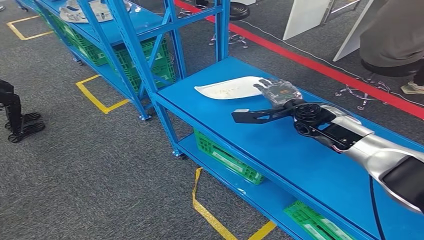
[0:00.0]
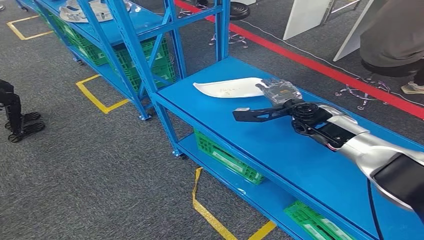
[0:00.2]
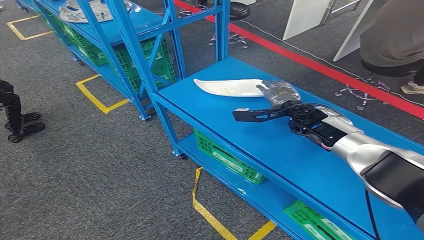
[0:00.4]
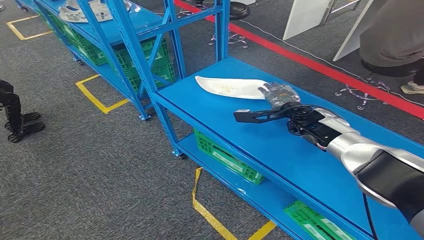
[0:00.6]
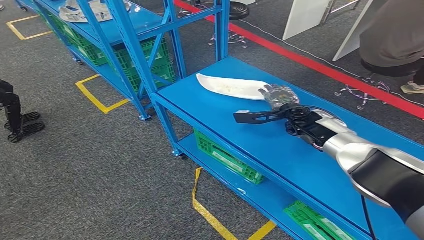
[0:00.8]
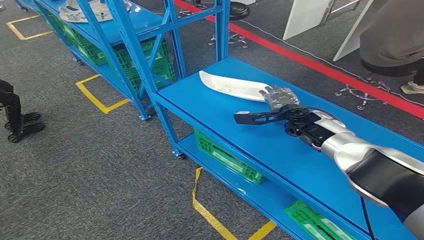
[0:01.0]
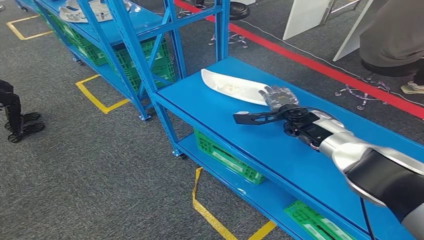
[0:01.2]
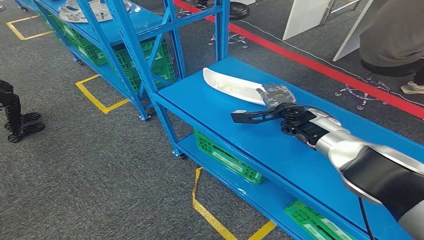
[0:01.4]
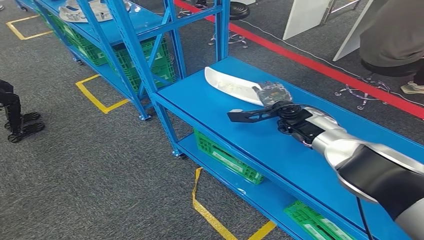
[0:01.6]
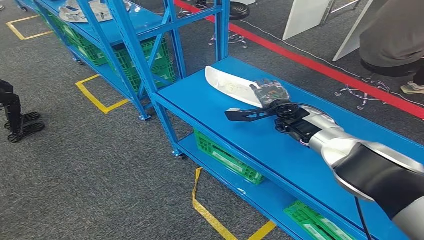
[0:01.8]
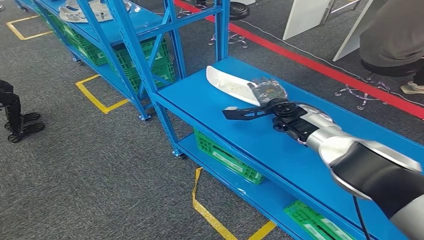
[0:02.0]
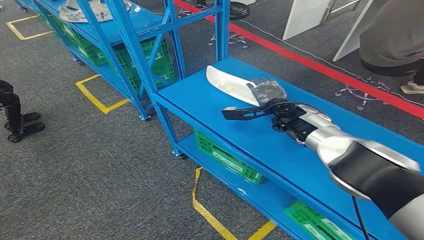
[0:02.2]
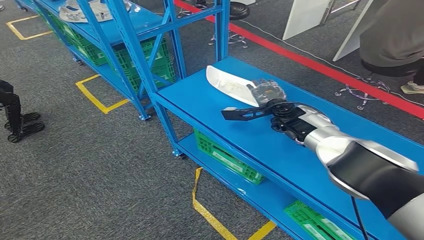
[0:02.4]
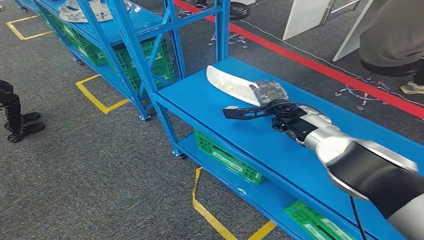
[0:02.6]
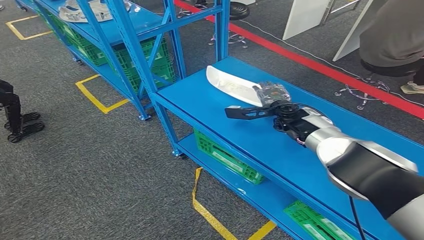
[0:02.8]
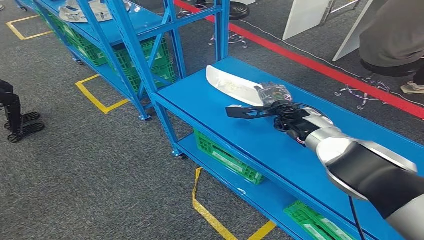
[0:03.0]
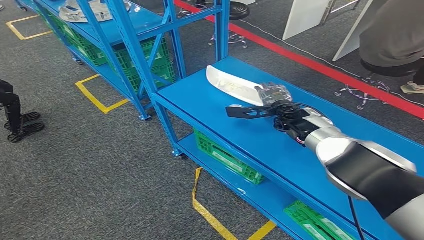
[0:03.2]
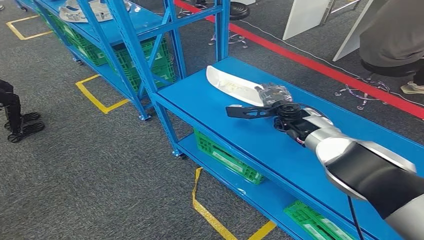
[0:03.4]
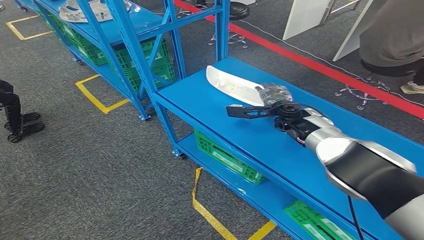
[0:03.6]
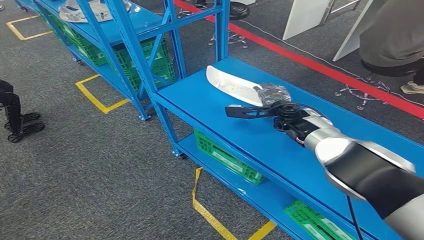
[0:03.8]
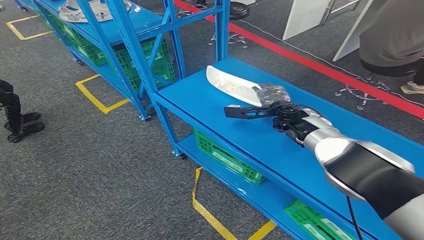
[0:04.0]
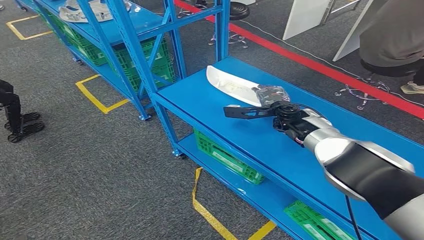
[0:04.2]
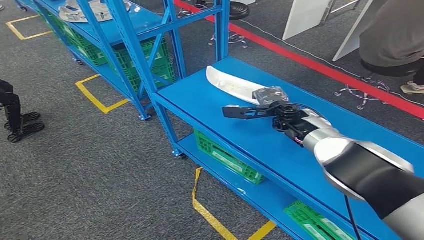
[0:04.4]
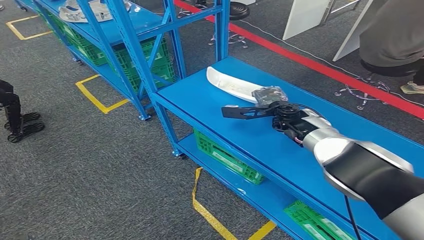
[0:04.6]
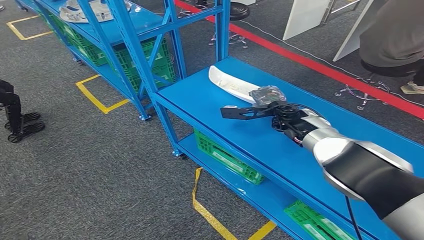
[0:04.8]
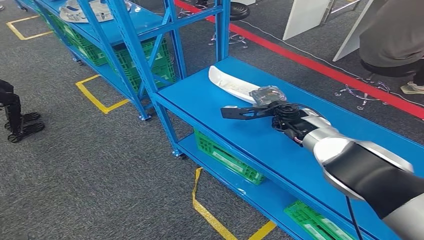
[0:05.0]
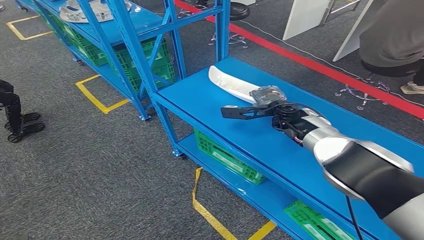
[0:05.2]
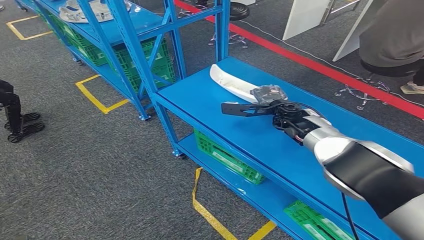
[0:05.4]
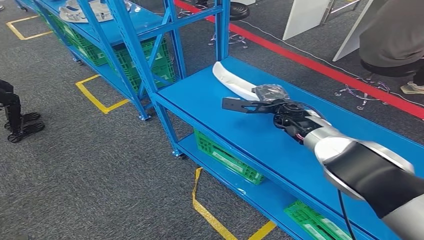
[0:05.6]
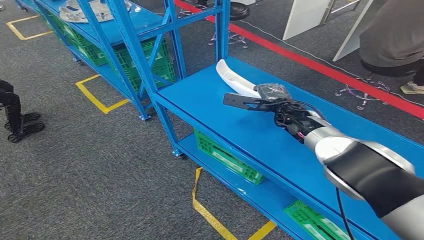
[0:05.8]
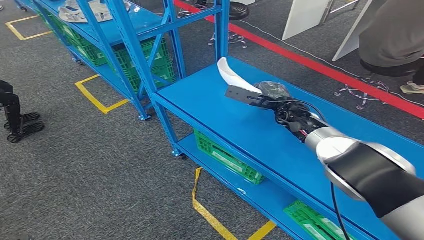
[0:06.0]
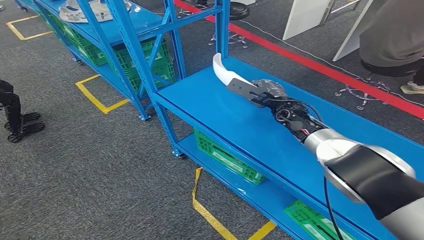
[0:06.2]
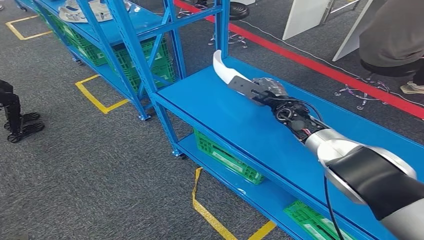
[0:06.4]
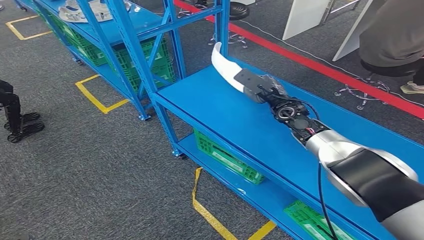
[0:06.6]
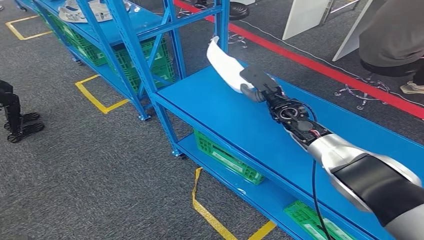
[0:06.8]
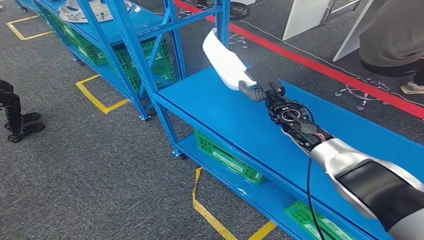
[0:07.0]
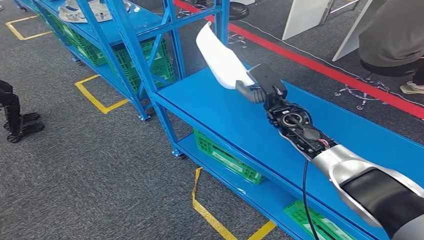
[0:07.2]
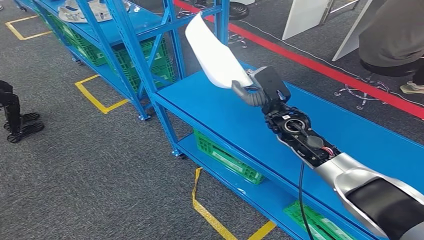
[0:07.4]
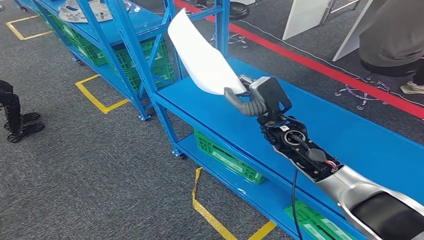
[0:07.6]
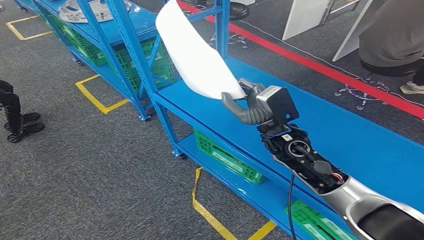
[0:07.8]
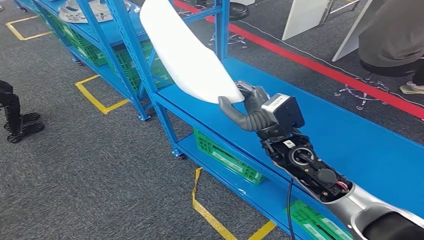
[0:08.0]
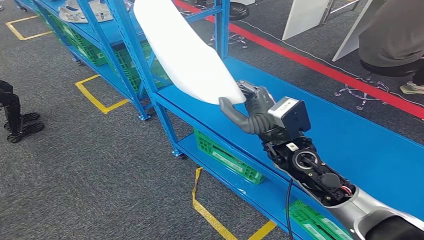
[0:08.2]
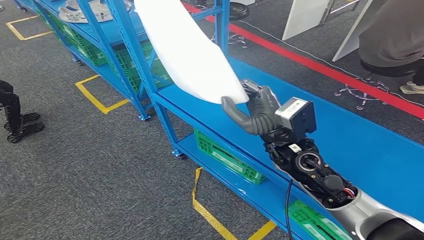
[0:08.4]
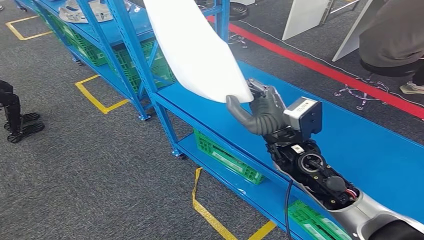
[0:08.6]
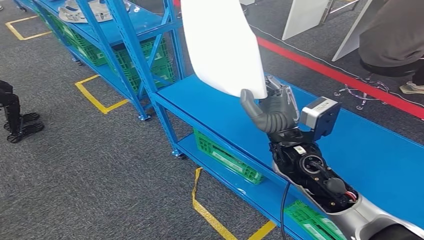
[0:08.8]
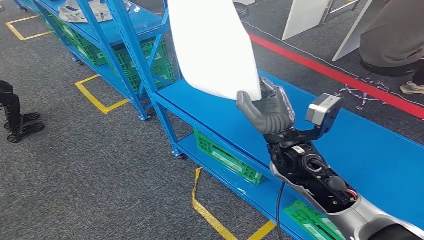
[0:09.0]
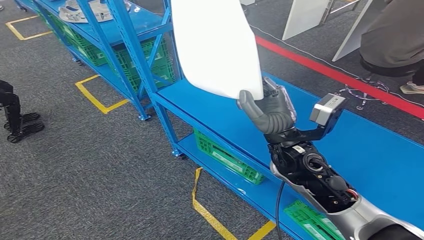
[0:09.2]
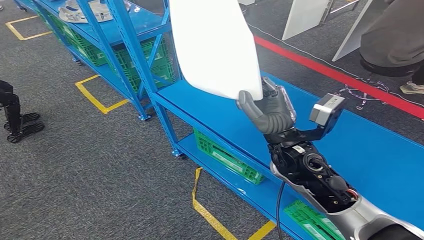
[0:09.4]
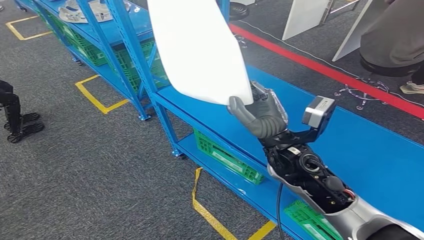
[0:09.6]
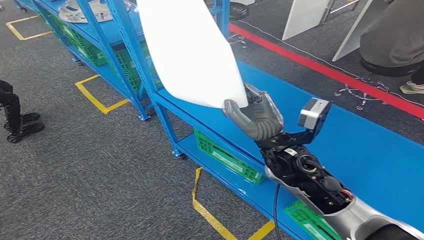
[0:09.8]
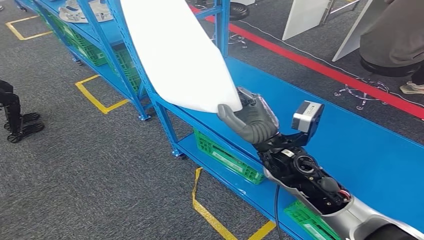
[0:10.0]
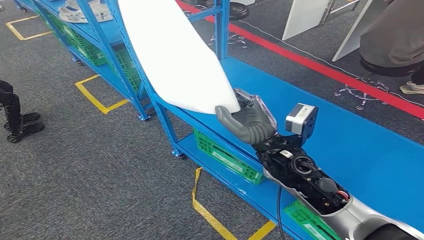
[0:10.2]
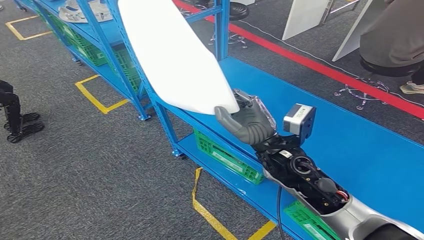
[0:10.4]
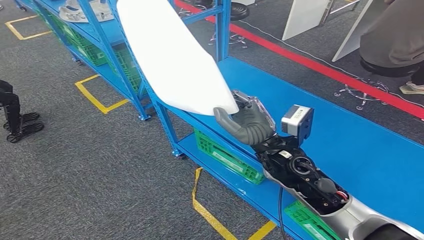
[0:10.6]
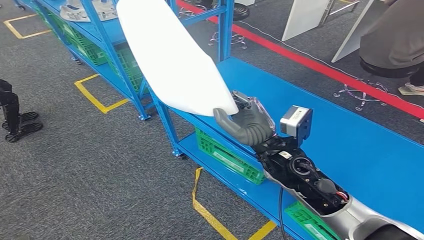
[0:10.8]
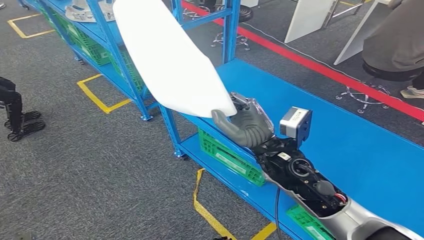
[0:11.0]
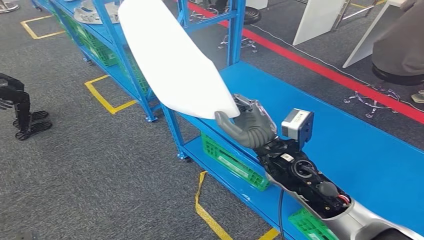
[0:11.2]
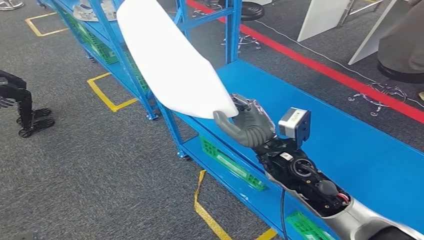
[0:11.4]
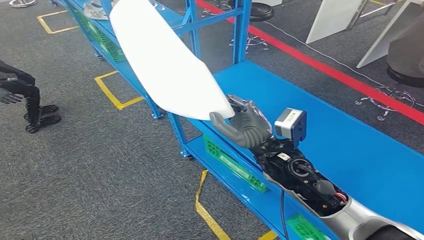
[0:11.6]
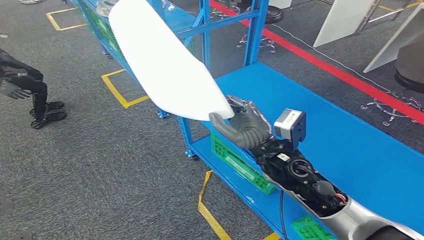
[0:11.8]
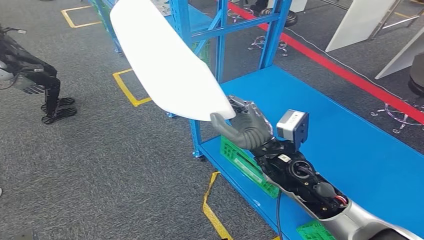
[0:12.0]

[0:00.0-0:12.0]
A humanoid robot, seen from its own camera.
Step, 0:00.0 to 0:08.8: Pick up the small parts from the shelf.
0:00.0 to 0:01.6: The right hand moves roughly 5 cm.
0:01.6 to 0:04.4: The hands stay close to where they were, moving slightly.
0:06.0 to 0:07.6: The right hand goes some 15 cm backward and to the left.
0:07.6 to 0:09.0: The right hand heads backward, covering some 10 cm.
0:09.0 to 0:10.4: The hands make only small movements.

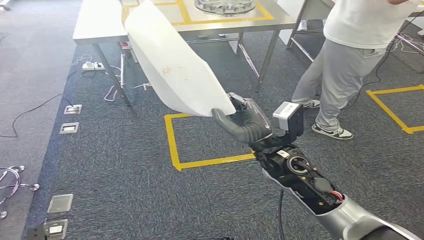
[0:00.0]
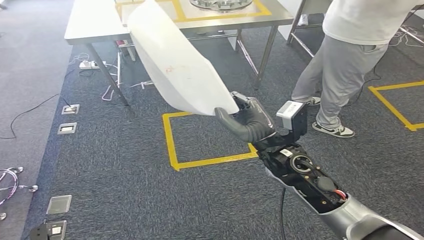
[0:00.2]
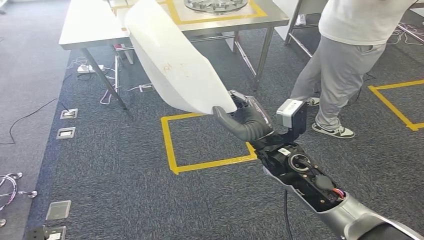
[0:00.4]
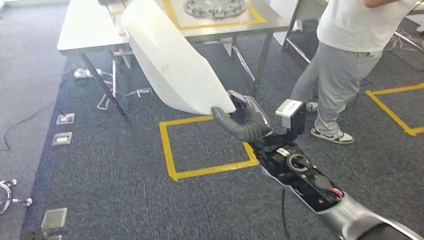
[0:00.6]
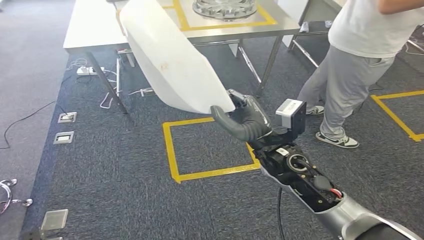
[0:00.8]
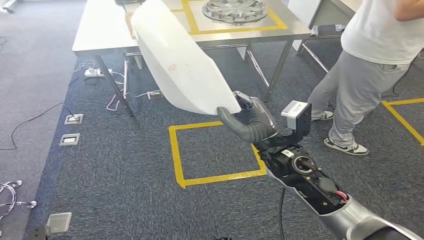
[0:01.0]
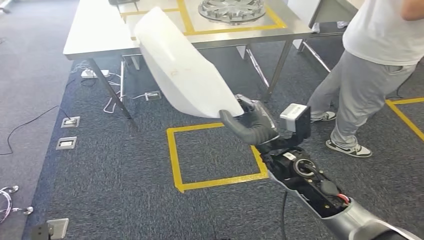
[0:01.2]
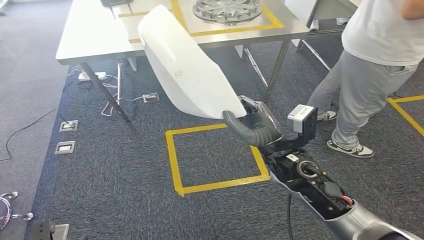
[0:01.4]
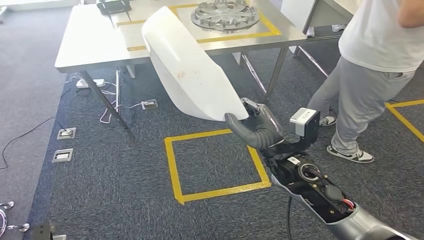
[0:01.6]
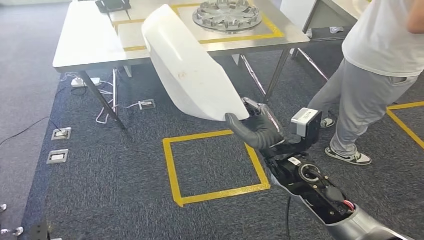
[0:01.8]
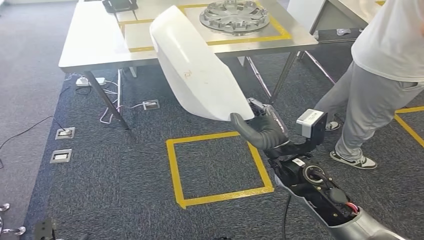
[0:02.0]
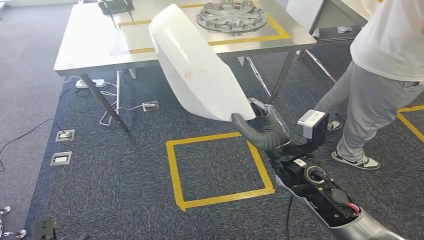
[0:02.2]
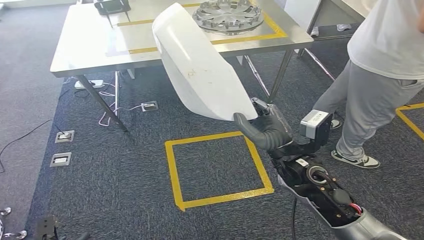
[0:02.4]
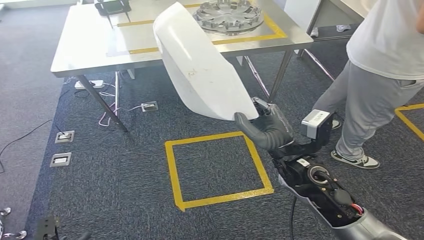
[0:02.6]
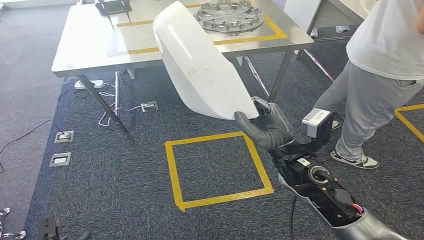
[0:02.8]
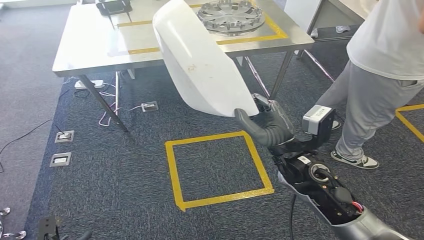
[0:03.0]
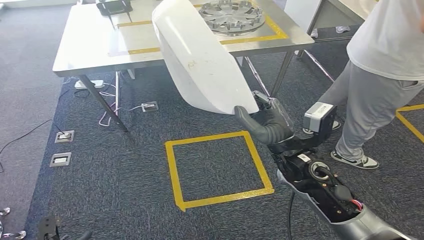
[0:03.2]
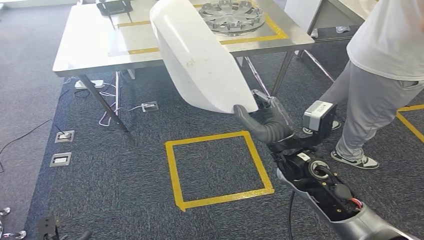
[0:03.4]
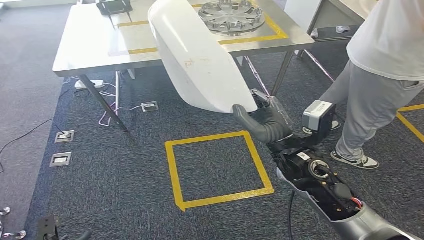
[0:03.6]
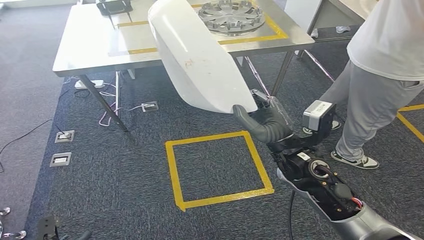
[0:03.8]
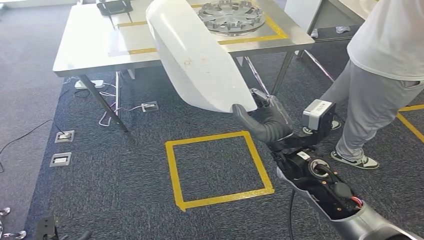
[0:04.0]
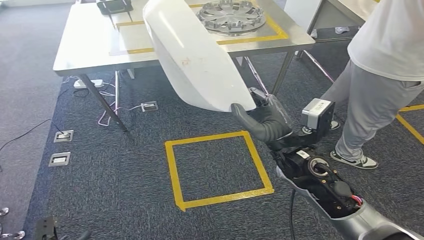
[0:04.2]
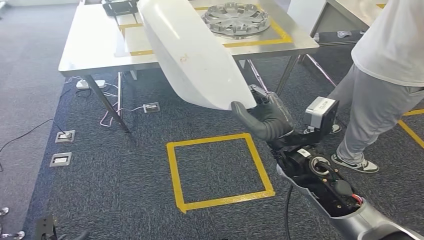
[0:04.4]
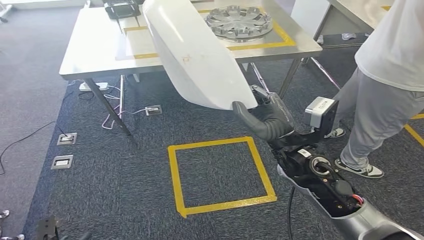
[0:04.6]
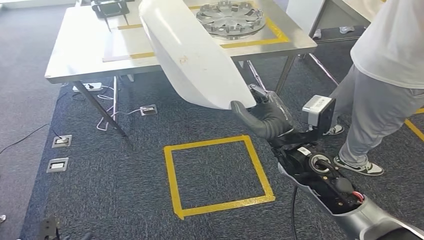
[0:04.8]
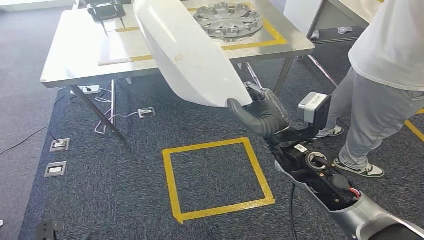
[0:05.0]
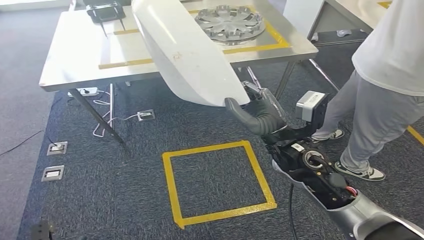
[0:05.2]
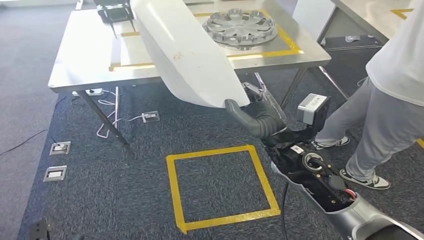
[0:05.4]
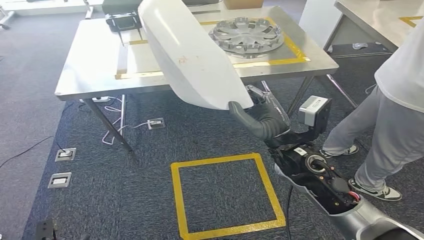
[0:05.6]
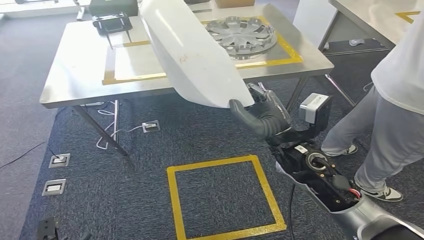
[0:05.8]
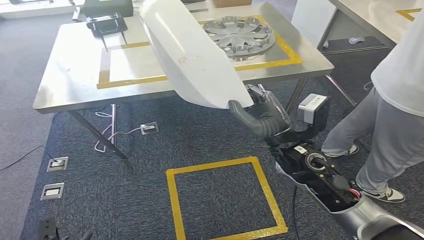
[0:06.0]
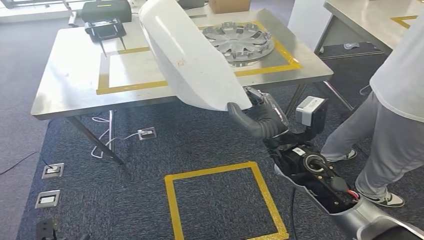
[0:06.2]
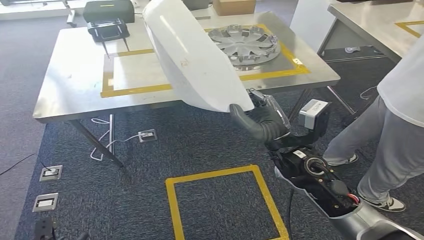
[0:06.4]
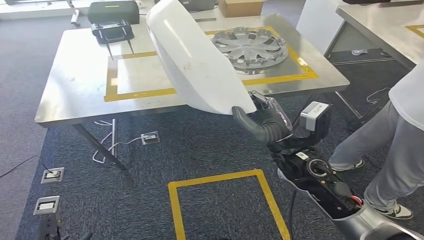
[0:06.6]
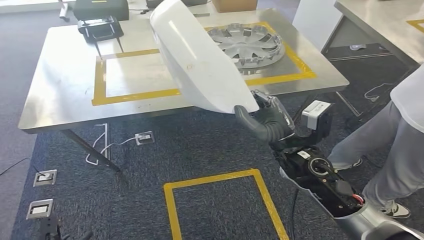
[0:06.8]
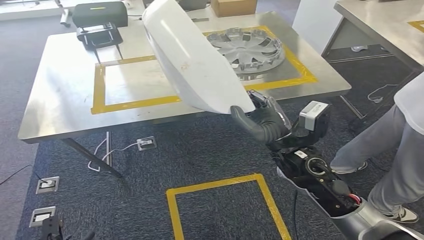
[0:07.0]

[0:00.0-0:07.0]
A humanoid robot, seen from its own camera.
0:02.8 to 0:04.2: The hands make only small movements.
